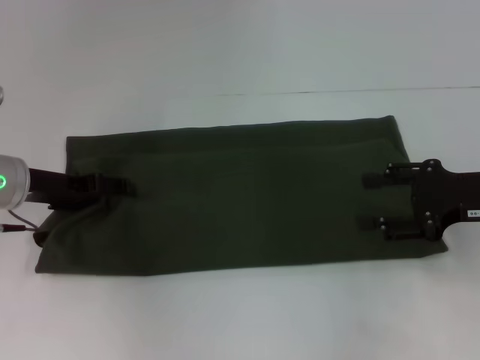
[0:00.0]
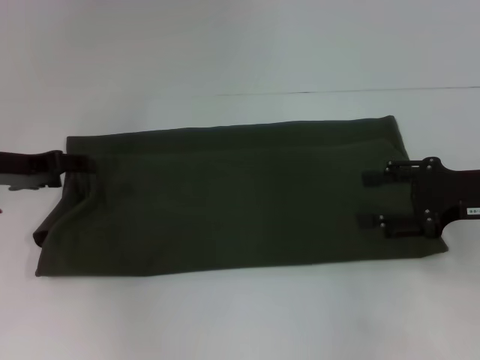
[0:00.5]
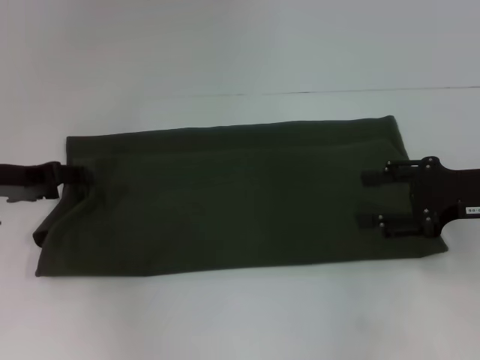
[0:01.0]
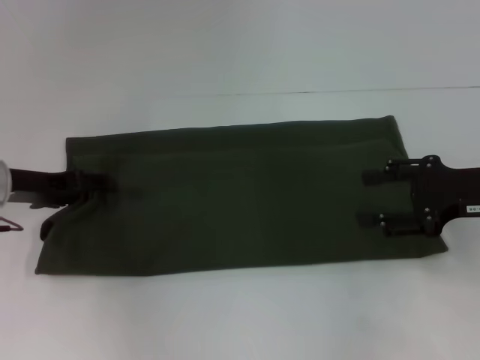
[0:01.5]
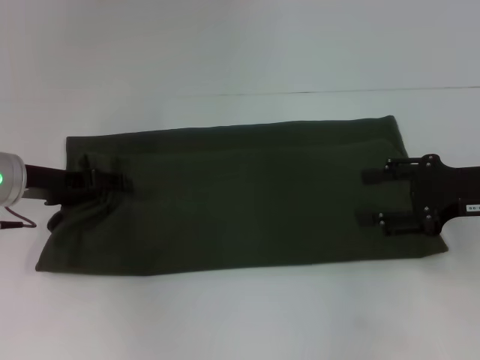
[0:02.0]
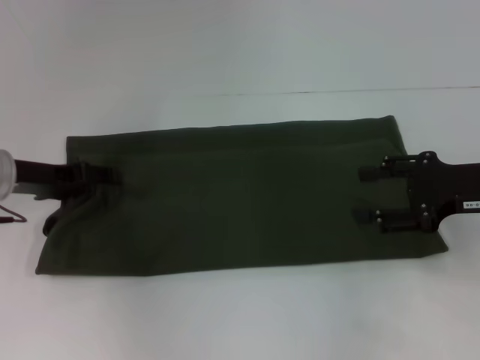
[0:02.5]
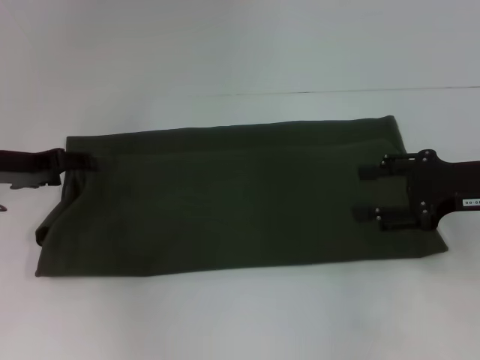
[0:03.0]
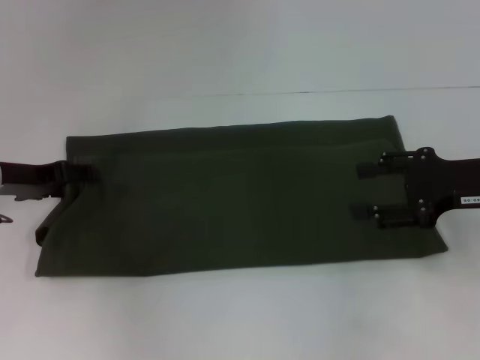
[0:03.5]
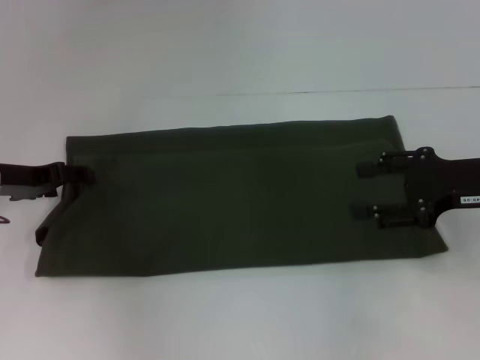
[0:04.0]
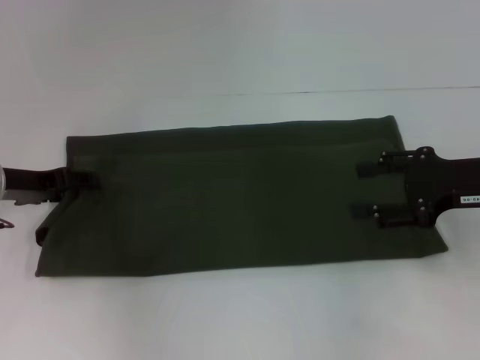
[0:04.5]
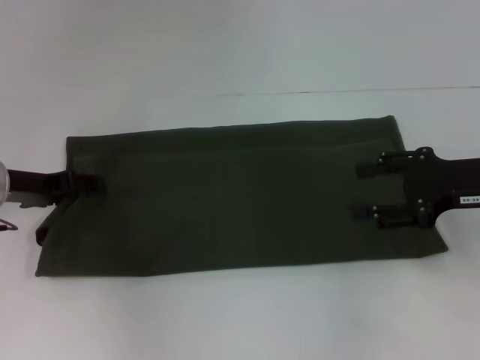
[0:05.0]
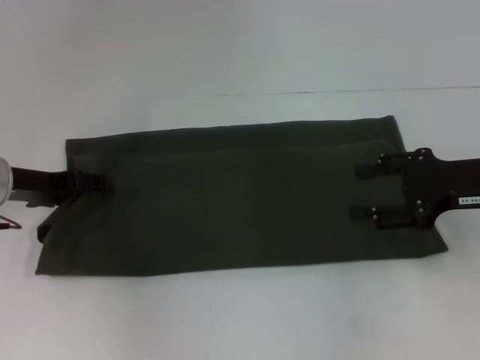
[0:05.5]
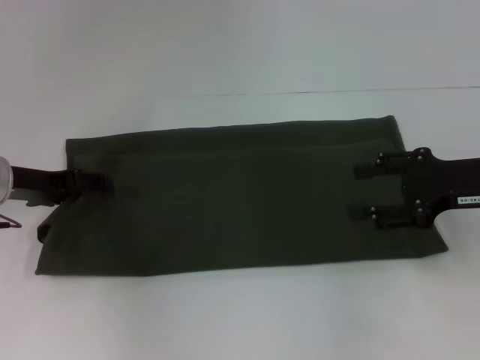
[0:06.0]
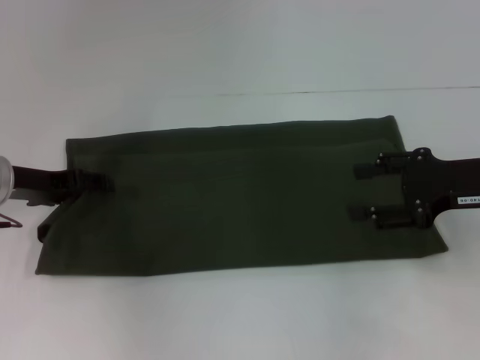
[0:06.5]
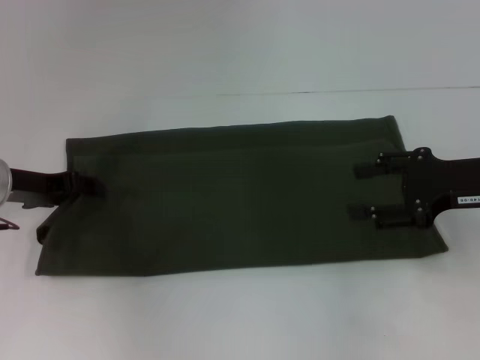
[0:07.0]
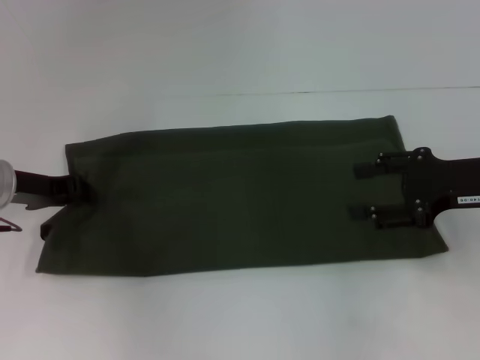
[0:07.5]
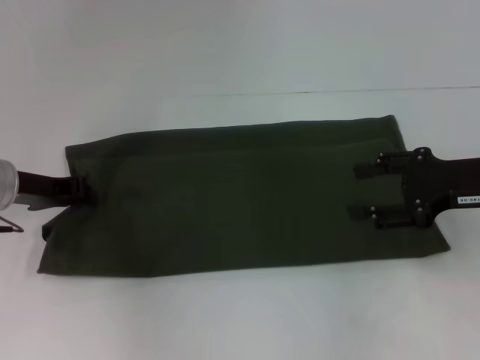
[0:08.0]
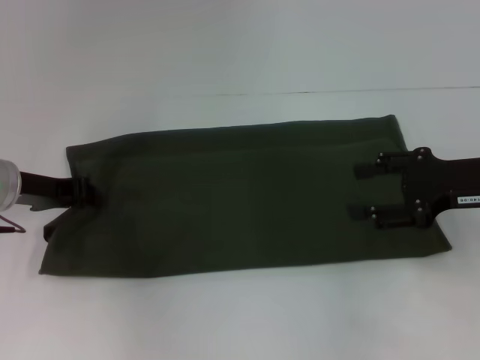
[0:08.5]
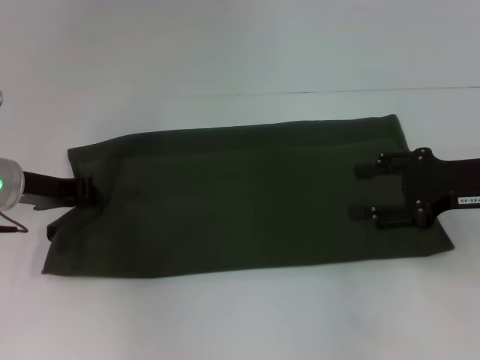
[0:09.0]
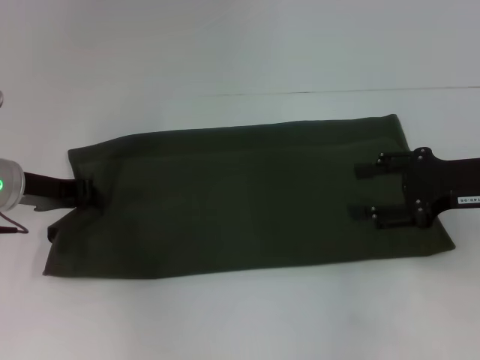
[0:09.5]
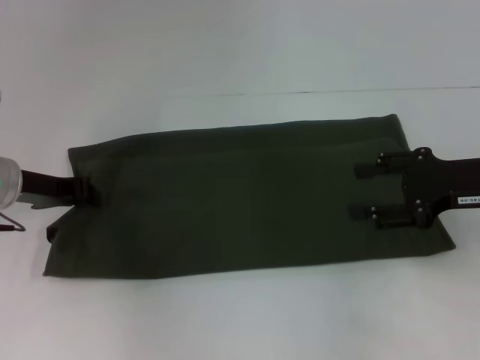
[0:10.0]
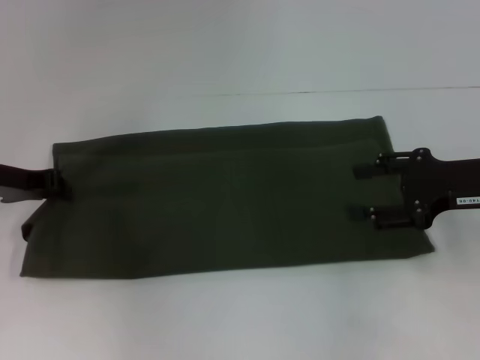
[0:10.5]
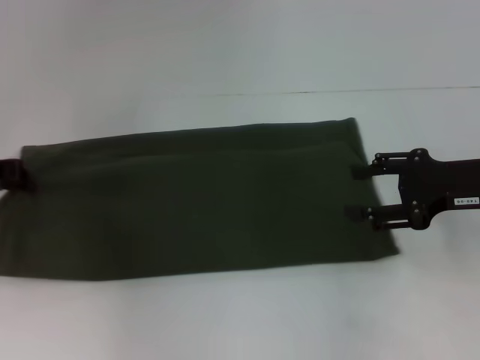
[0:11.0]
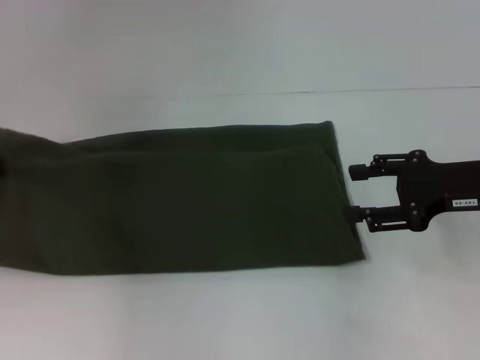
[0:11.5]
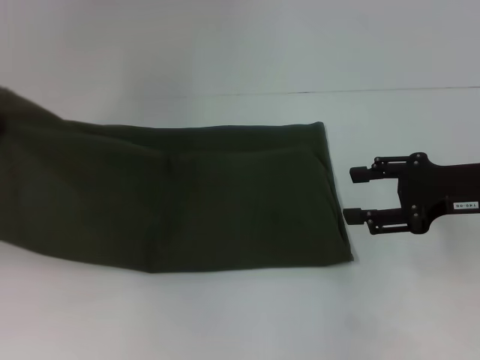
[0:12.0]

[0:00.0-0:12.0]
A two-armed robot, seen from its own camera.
0:00.0 to 0:06.0: The grippers make only small movements.
0:06.0 to 0:08.0: The left gripper closes its fingers.
0:08.0 to 0:10.0: Both grippers stay put.
0:10.0 to 0:12.0: The left gripper is displaced upward and to the left by roughly 15 cm.

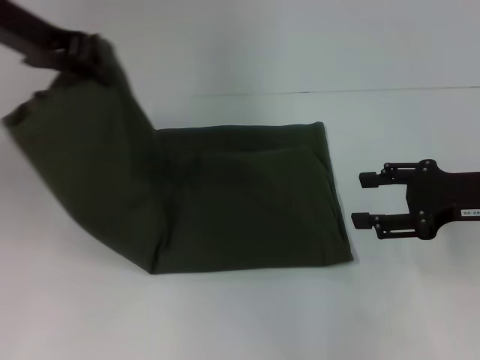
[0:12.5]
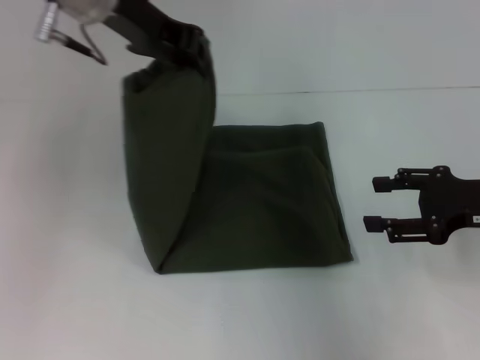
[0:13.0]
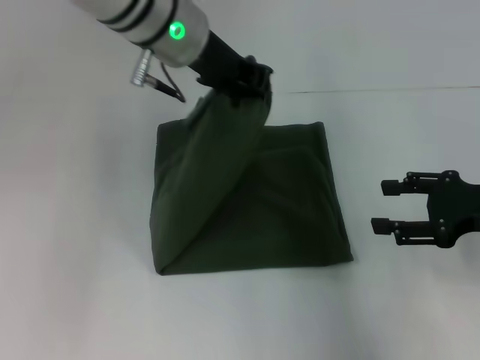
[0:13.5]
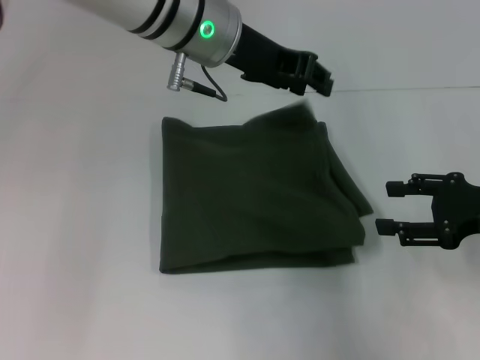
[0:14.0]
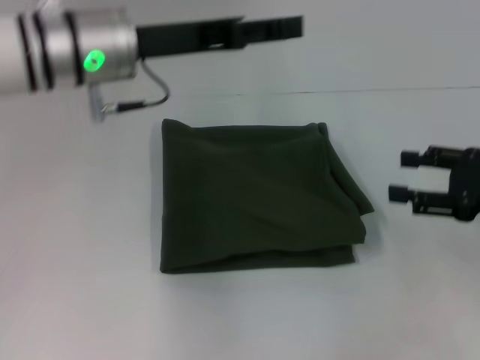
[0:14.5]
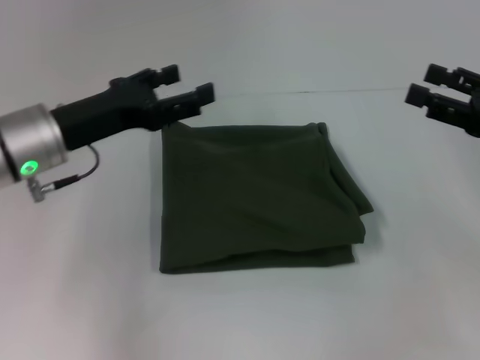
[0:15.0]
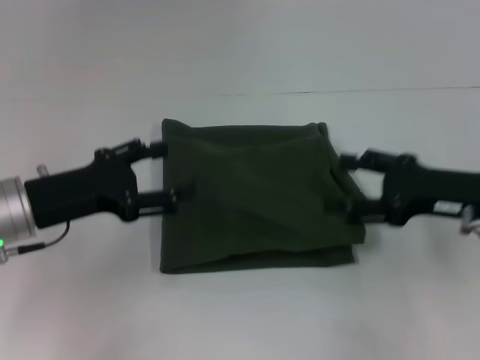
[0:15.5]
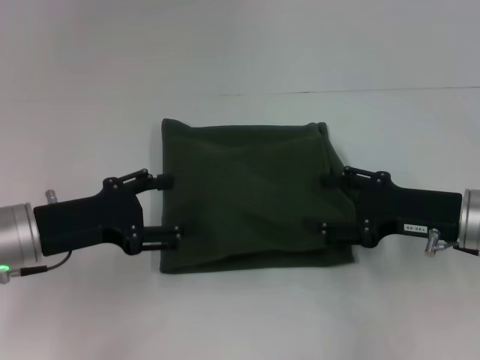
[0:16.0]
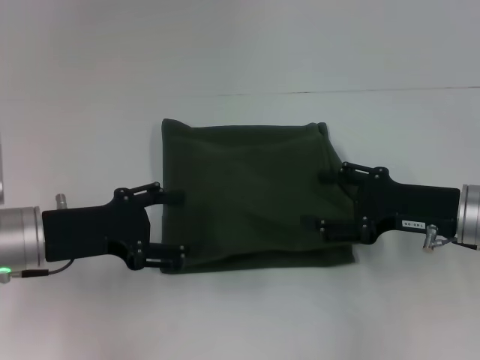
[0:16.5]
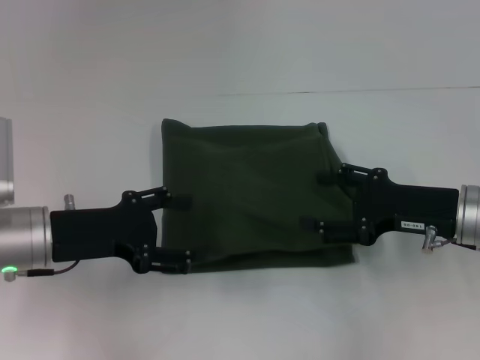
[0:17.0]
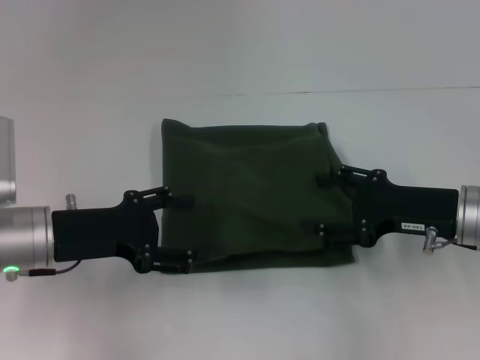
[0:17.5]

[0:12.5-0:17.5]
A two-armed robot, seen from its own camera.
0:12.5 to 0:15.0: The left gripper shifts roughly 15 cm downward and backward, goes to the right and returns, approximately 20 cm each way, and opens its fingers.
0:15.0 to 0:17.5: The right gripper shifts some 10 cm to the left and downward, while the left gripper changes place by some 5 cm.

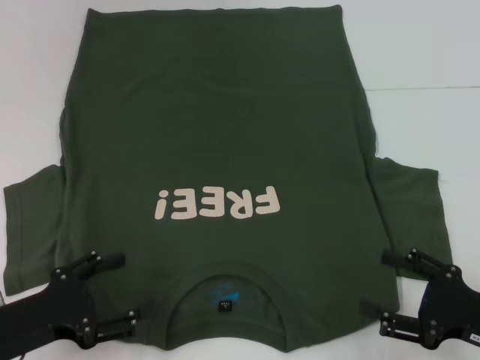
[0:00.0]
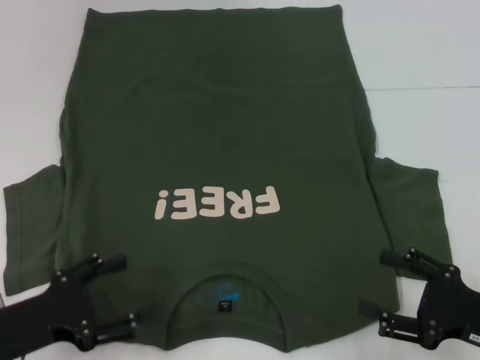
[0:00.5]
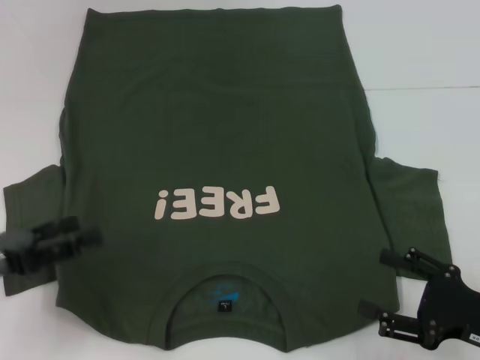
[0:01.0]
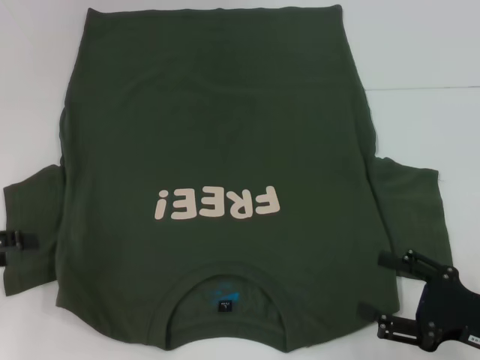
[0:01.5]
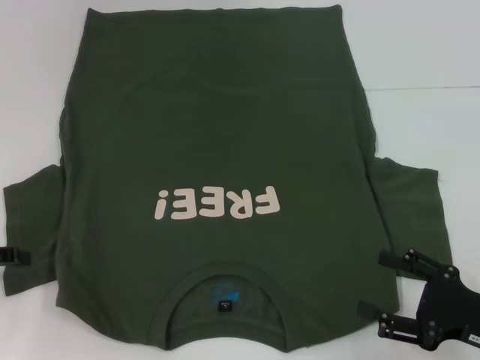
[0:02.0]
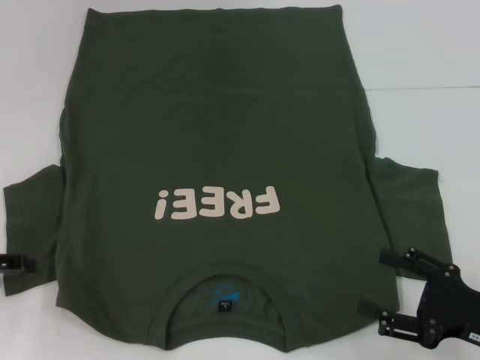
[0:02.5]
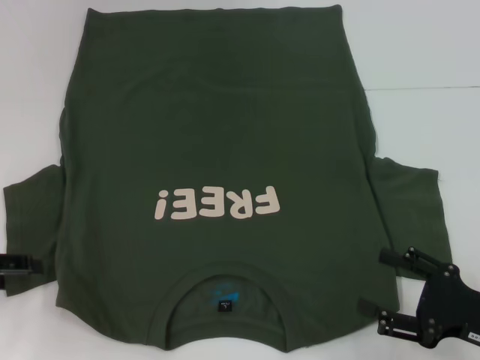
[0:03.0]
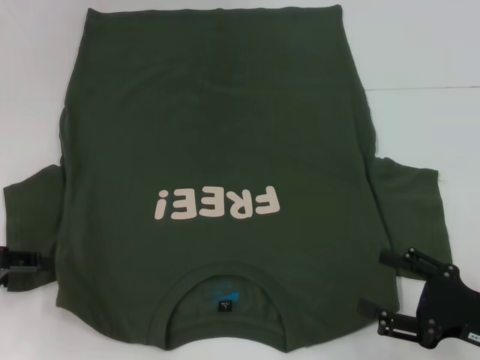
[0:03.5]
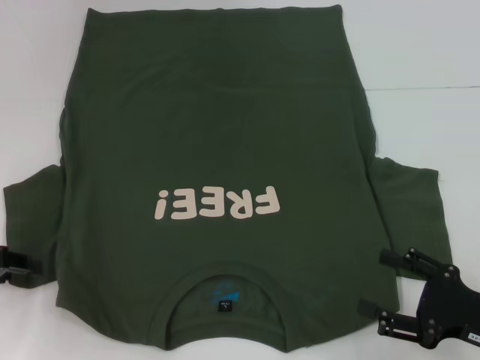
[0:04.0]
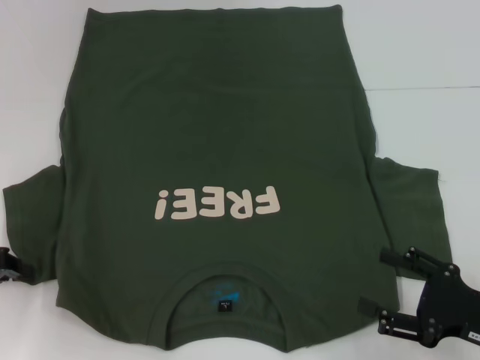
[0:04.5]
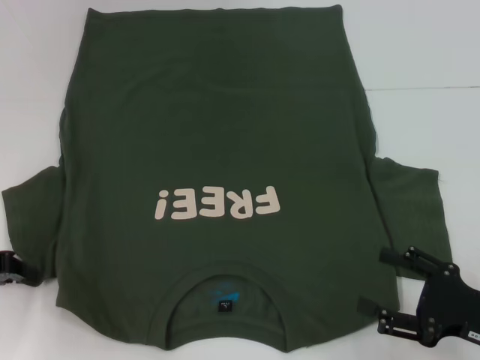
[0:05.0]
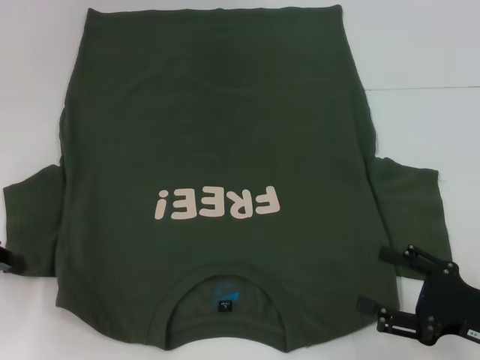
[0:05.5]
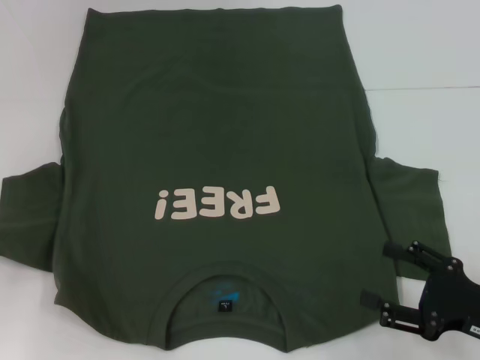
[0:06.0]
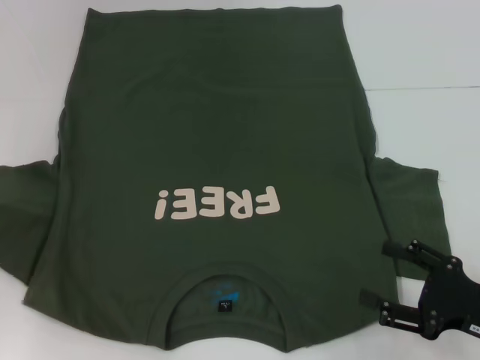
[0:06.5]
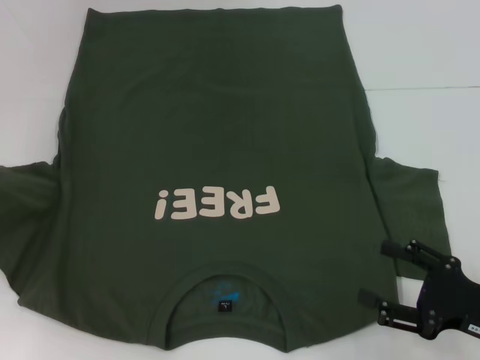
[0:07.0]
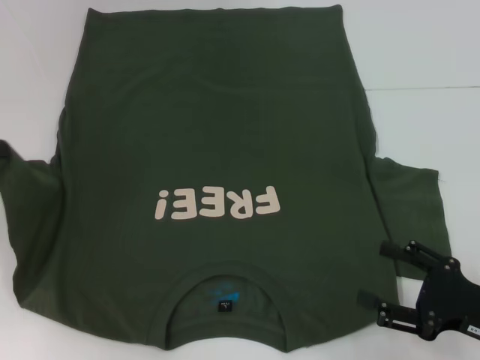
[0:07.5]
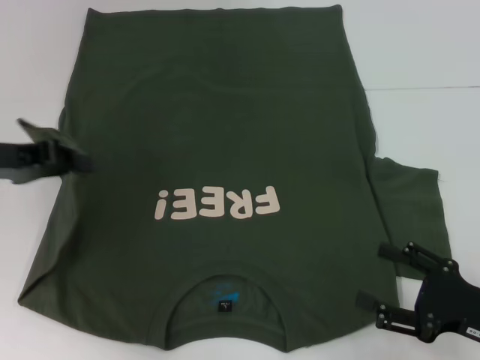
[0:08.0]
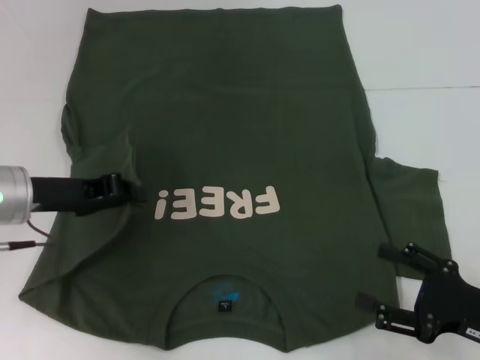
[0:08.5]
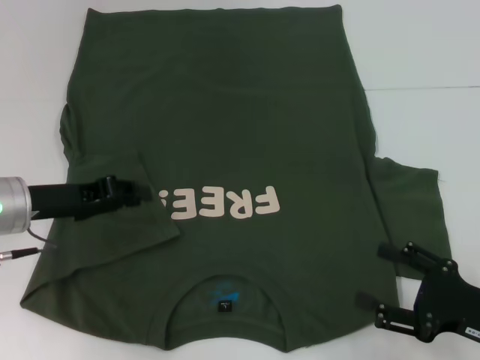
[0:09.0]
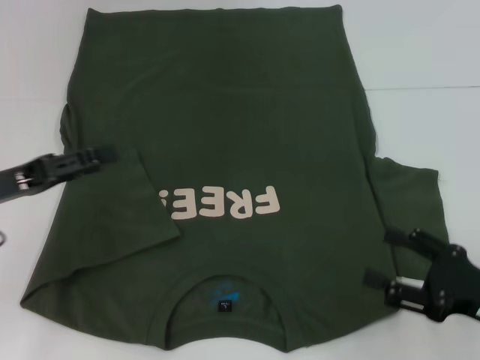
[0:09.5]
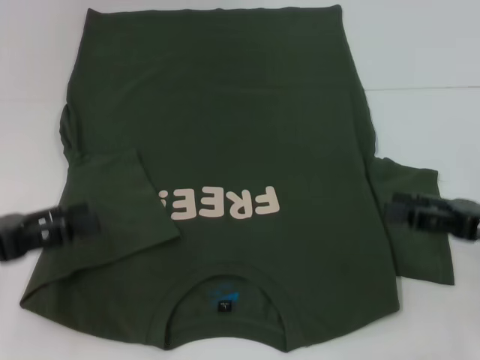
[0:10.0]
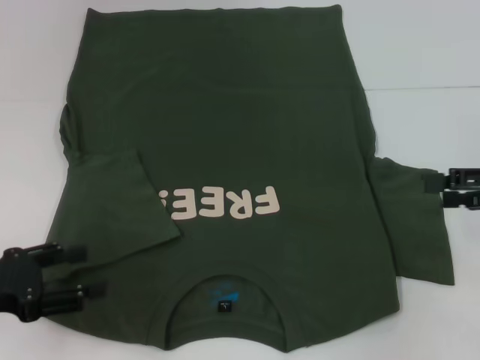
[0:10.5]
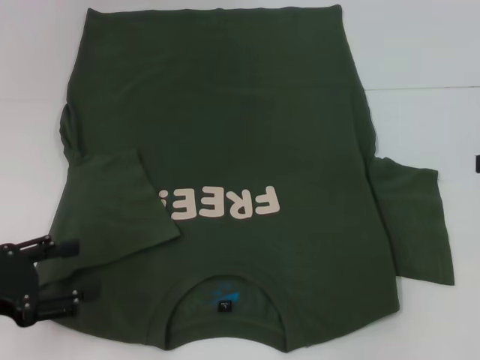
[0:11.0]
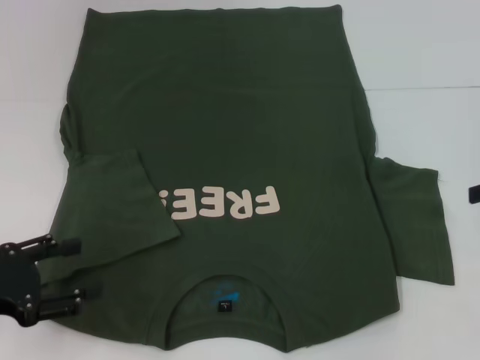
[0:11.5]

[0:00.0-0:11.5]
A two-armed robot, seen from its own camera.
0:00.0 to 0:02.0: The left gripper heads to the left, forward and upward, covering approximately 15 cm.
0:04.0 to 0:06.0: The left gripper closes up.
0:06.0 to 0:07.5: The left gripper moves upward, some 5 cm.
0:07.5 to 0:09.5: The left gripper heads downward and to the right, covering approximately 10 cm, and opens up.
0:09.5 to 0:11.5: The right gripper shifts about 20 cm forward, upward and to the right. The left gripper goes roughly 5 cm backward.
